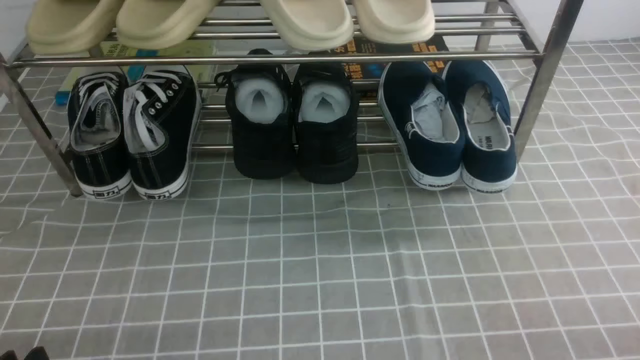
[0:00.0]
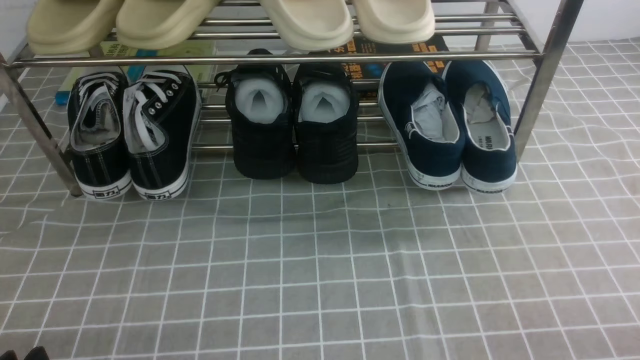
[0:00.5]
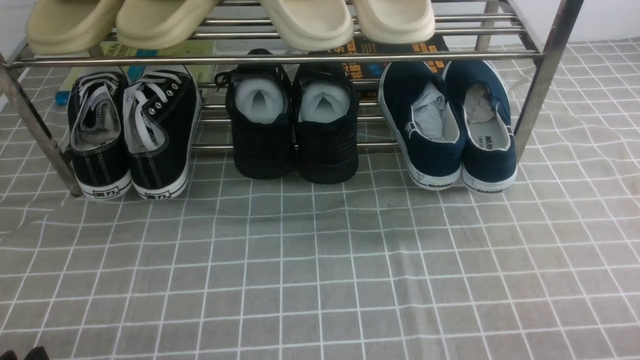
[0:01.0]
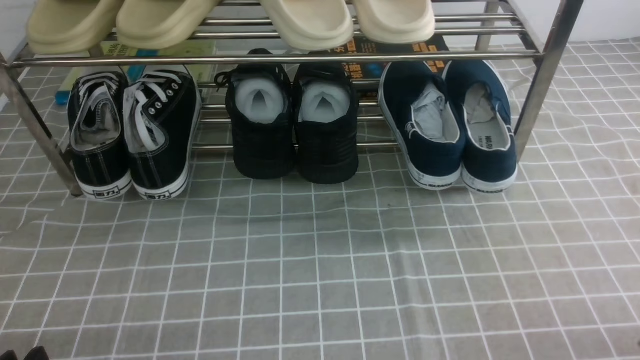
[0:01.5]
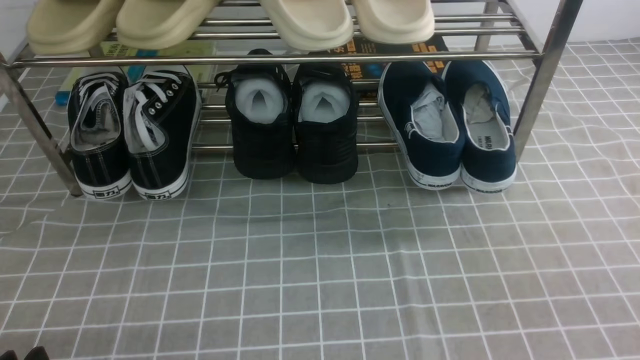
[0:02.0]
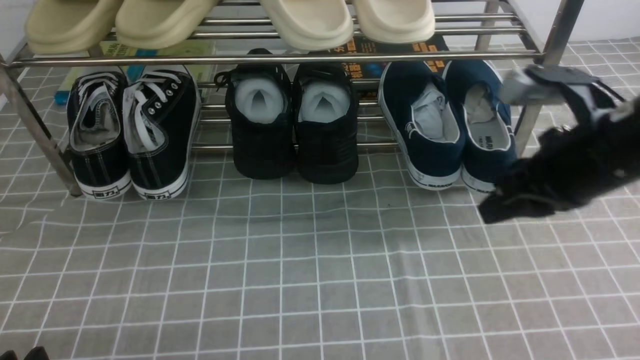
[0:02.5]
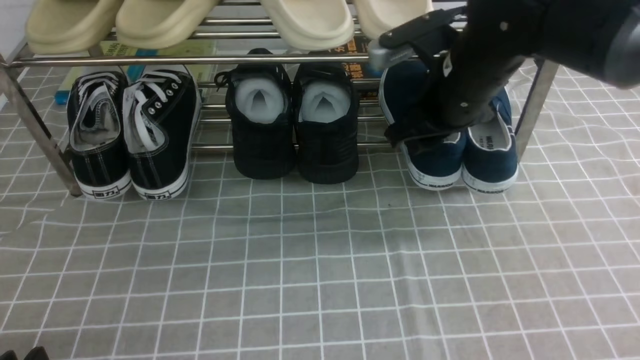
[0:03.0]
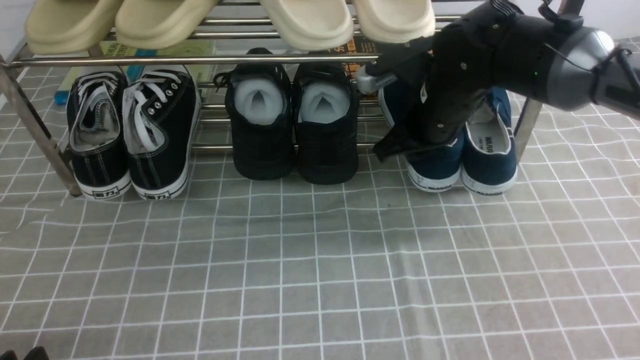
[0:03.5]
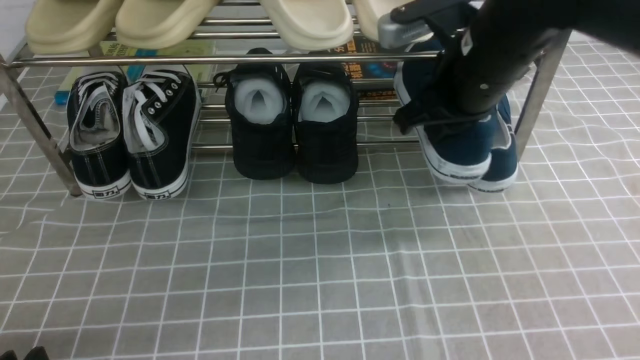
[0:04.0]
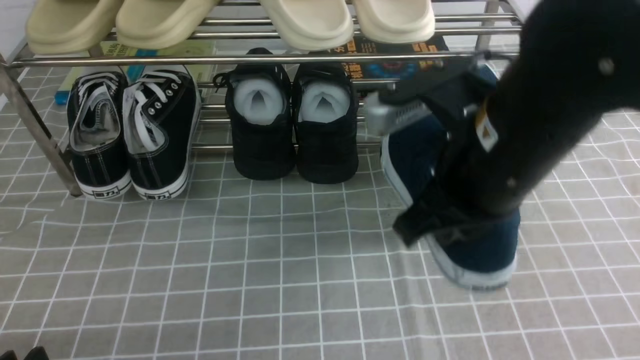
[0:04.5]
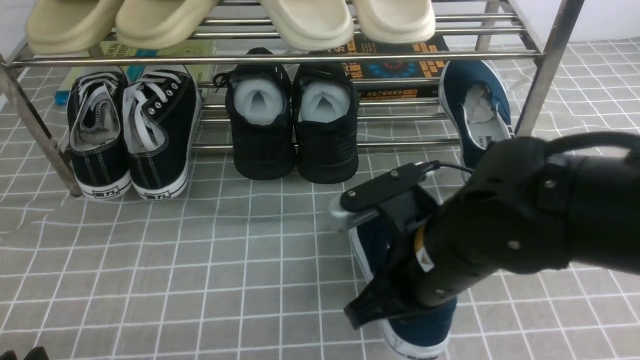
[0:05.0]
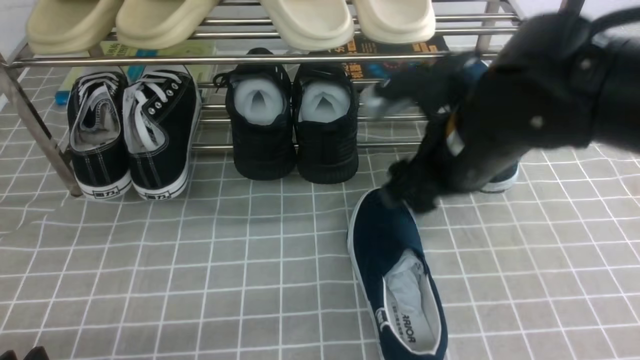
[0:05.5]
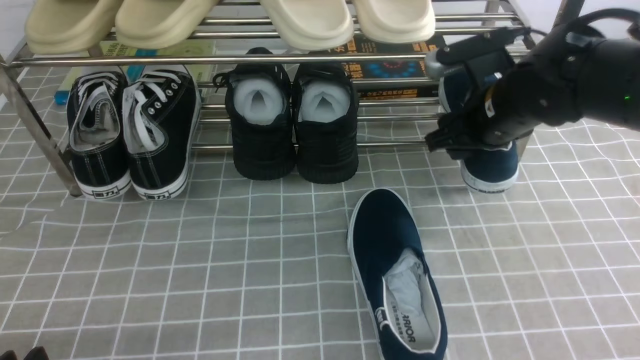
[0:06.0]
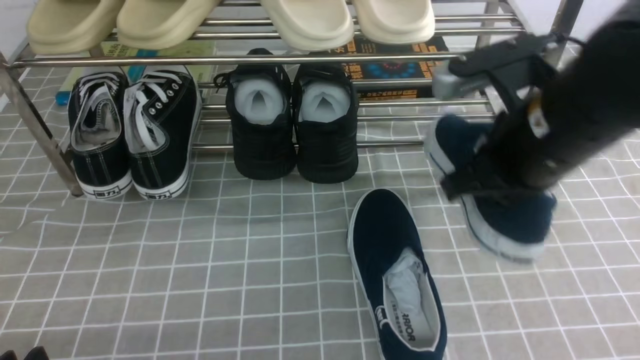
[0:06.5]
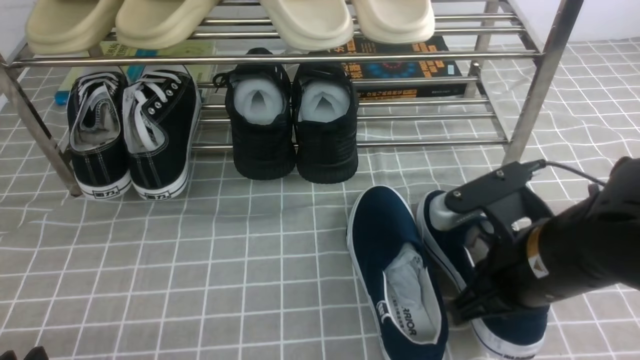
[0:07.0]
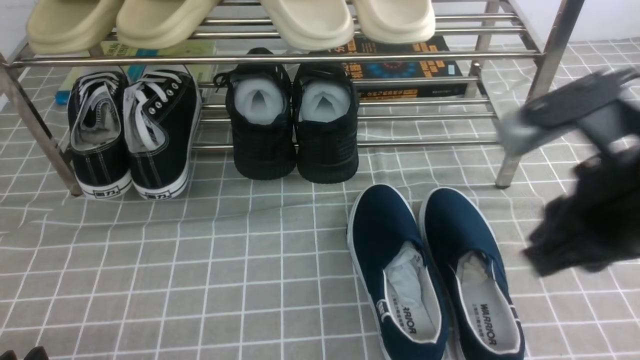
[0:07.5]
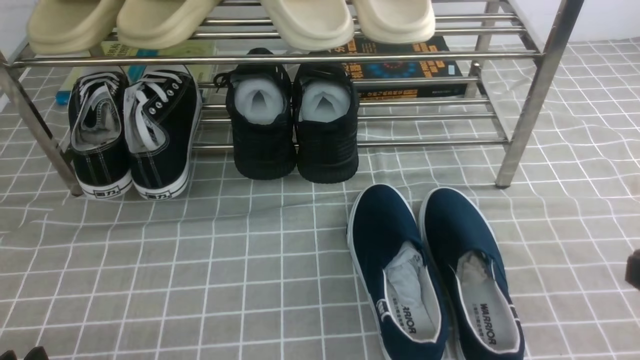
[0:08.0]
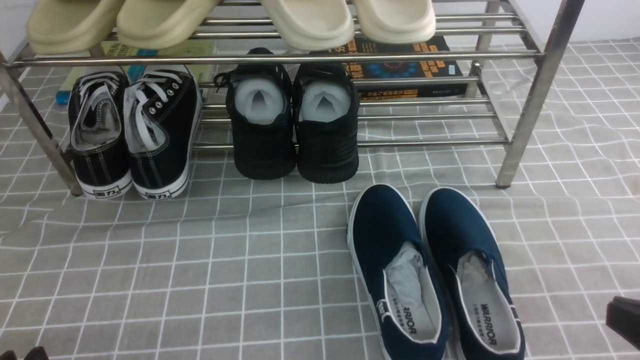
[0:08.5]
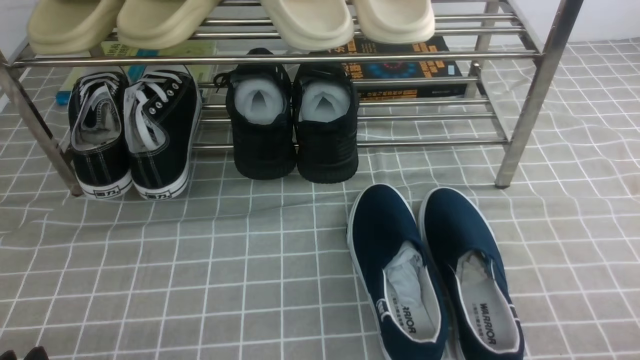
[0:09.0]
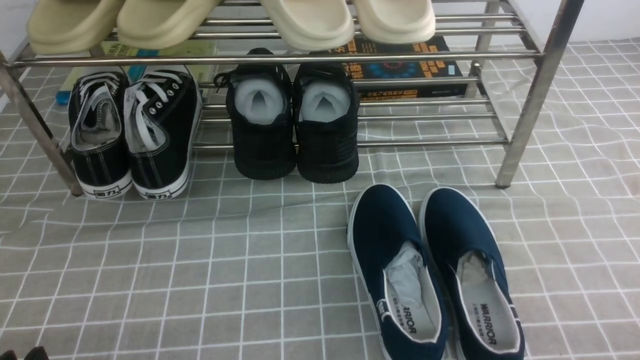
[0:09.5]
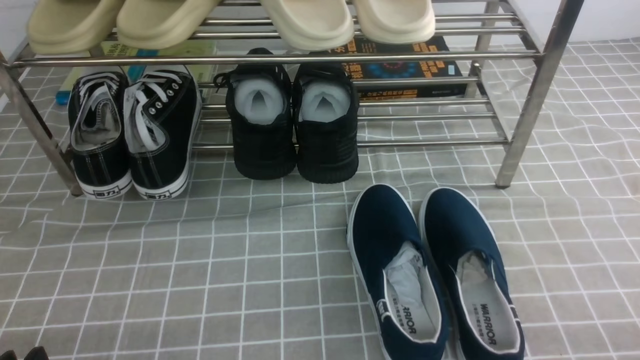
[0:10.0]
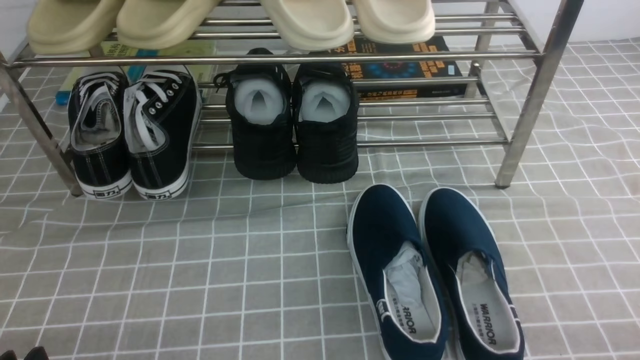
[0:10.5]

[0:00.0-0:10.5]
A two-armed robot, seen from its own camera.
Step, 0:00.0 to 0:03.5: use the right arm to clamp a shoe on the right side of the shoe rack.
Step, 0:04.0 to 0:05.5: use the right arm to take out the clamped shoe from the shoe rack and put it down.
Step, 0:06.5 to 0:07.0: use the right arm to take out the clamped shoe from the shoe rack and put it down.
0:02.0 to 0:04.0: The right gripper goes approximately 30 cm forward and to the left, and opens and closes again.
0:04.0 to 0:06.5: The right gripper moves forward and backward over approximately 15 cm, changing direction 2 times, and opens, then closes again.
0:06.5 to 0:08.5: The right gripper is displaced backward and to the right by about 25 cm.
